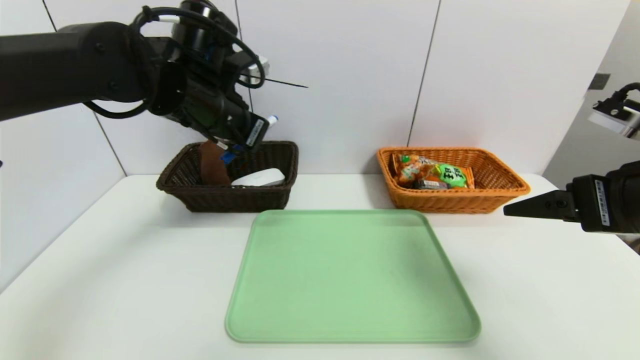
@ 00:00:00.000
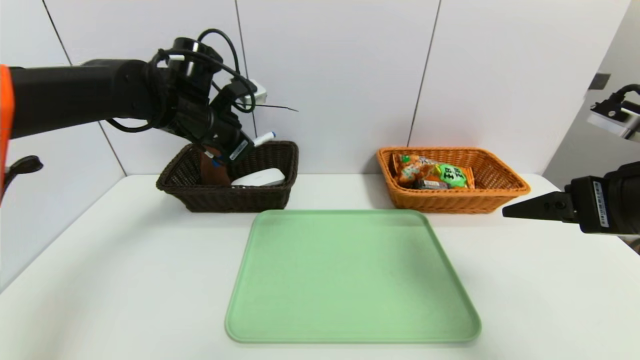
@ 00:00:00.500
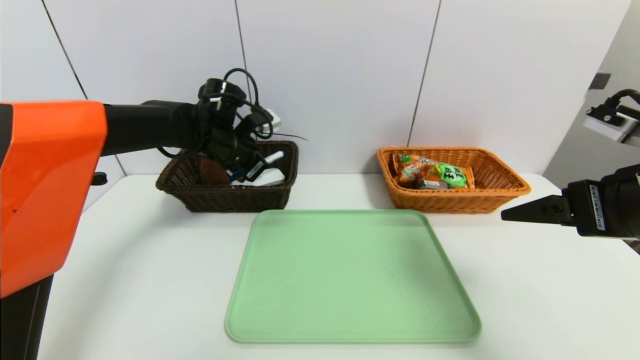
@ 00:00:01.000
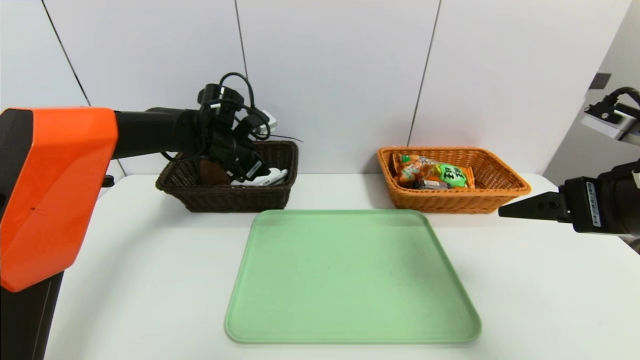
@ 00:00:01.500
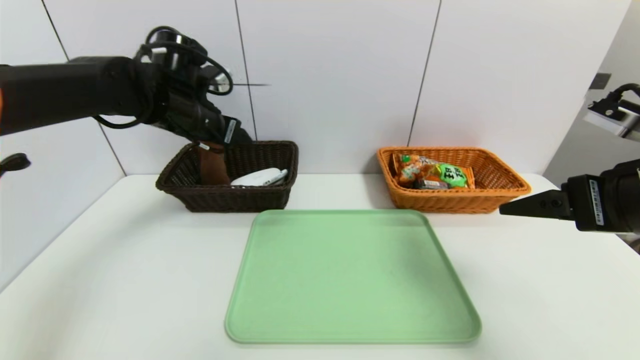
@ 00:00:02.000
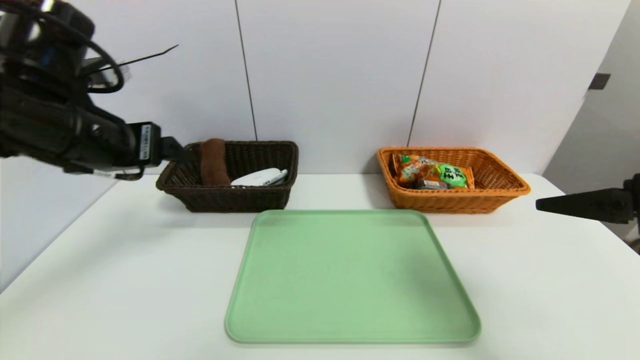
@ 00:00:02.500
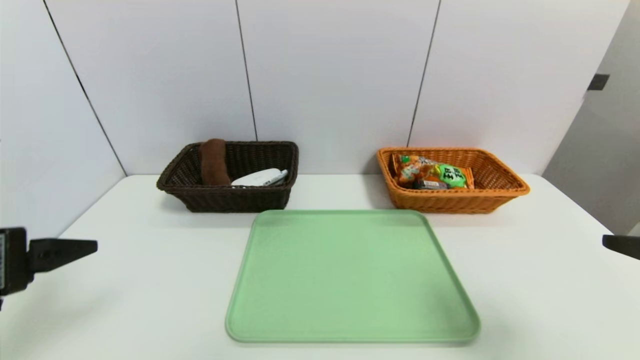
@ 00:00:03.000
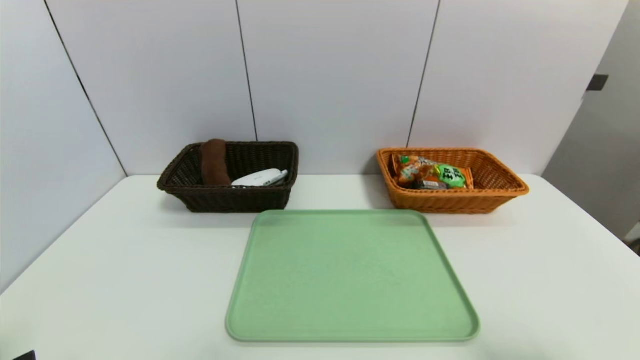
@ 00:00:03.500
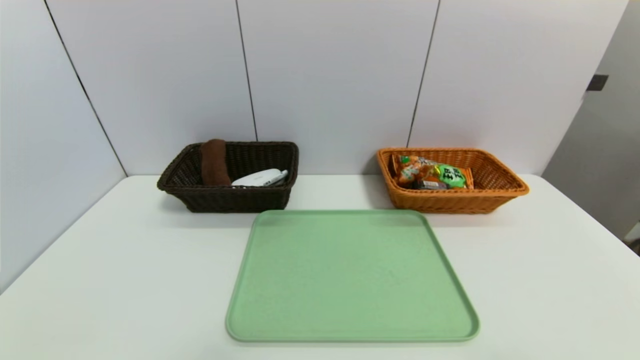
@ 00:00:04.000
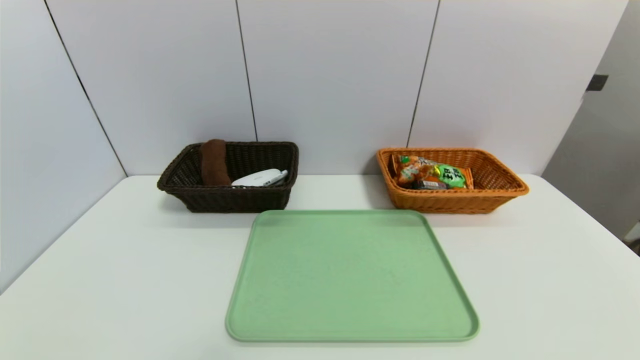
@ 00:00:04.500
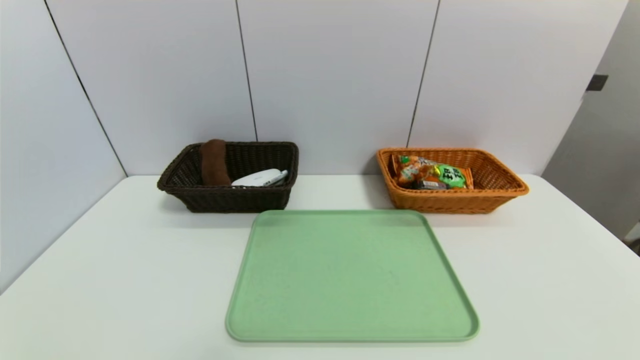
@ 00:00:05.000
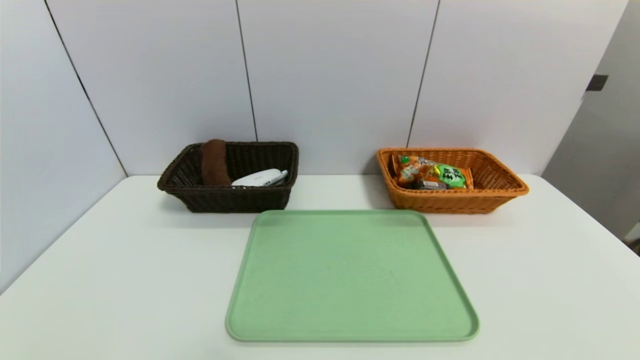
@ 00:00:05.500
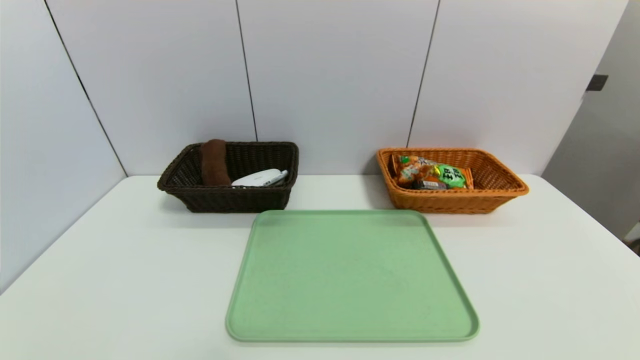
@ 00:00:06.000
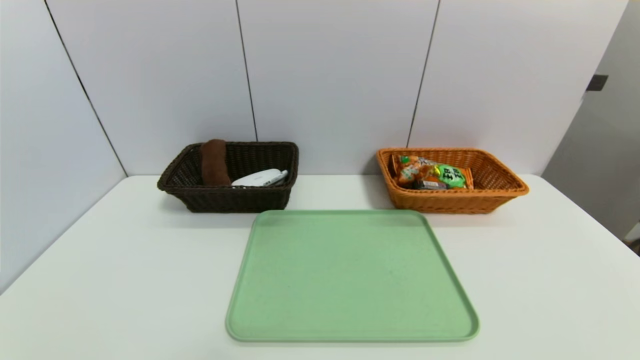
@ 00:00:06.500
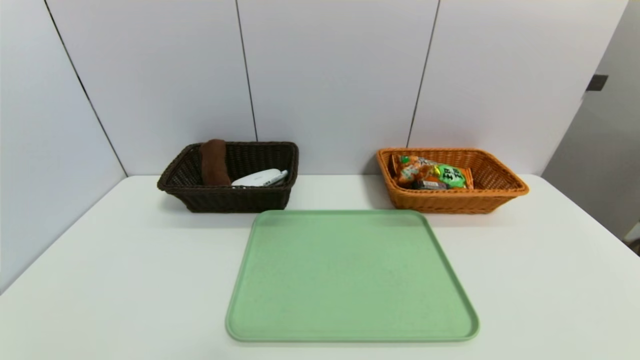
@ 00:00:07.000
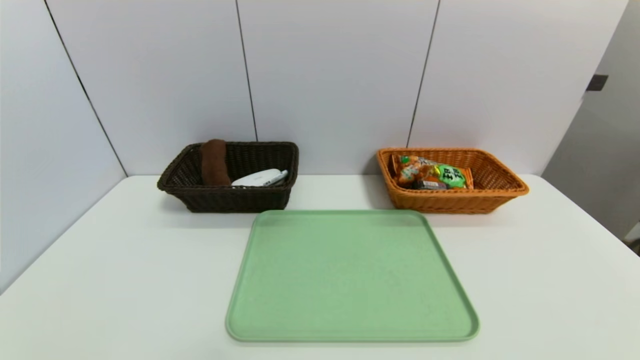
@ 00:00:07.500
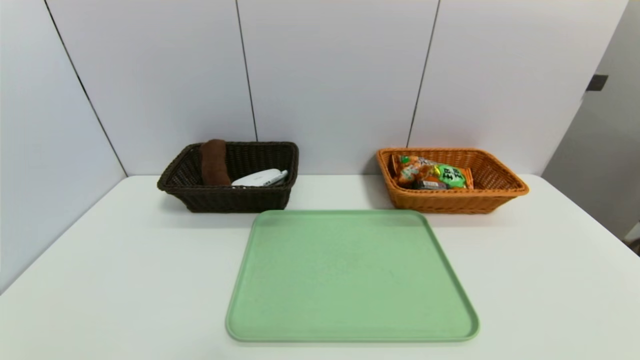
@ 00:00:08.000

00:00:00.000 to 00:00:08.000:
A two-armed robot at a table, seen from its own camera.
Task of the whole recording: place the food in the right basket with the right gripper, and place the non food items in the left basket with the left gripper.
00:00:00.000 to 00:00:02.000: The left gripper shifts approximately 5 cm to the left and forward, and opens.
00:00:02.000 to 00:00:04.000: The left gripper heads backward, covering about 40 cm, while the right gripper travels backward by roughly 20 cm.
